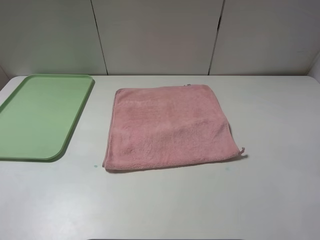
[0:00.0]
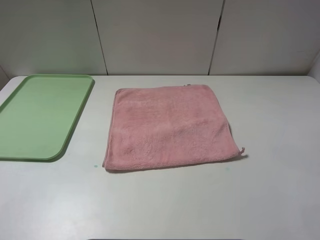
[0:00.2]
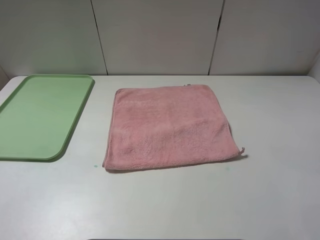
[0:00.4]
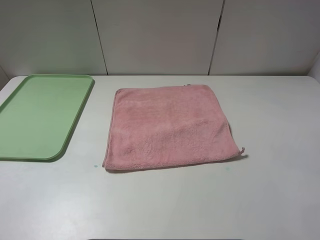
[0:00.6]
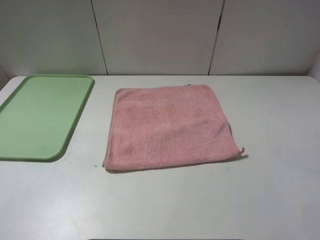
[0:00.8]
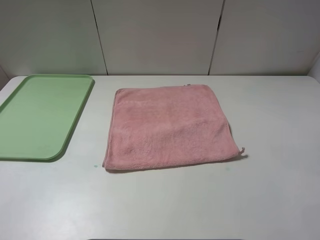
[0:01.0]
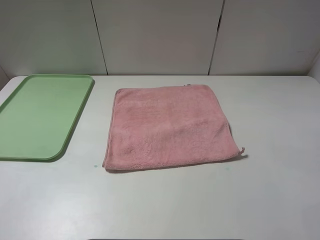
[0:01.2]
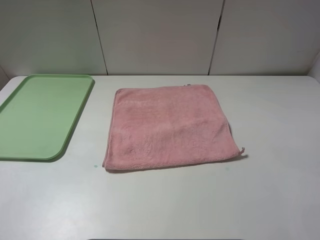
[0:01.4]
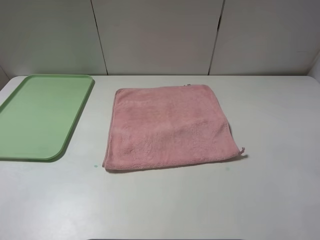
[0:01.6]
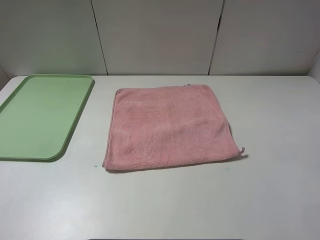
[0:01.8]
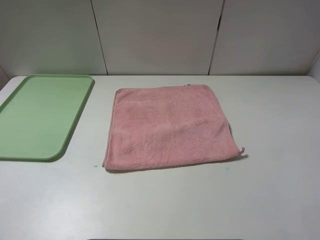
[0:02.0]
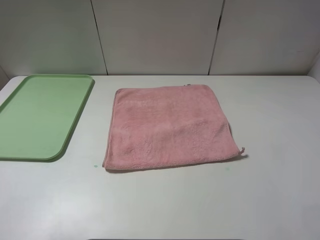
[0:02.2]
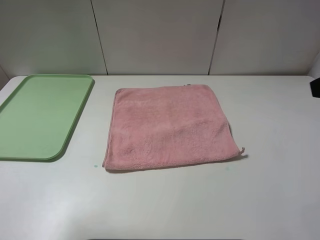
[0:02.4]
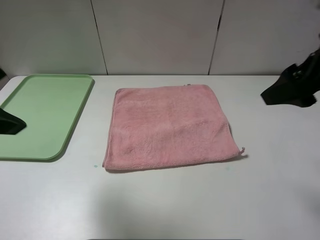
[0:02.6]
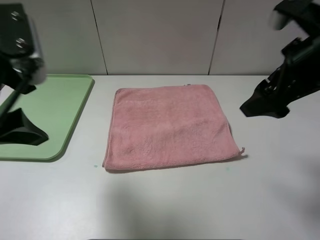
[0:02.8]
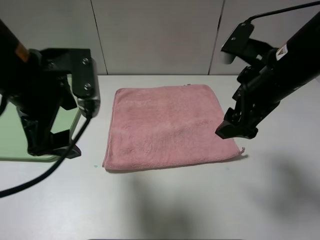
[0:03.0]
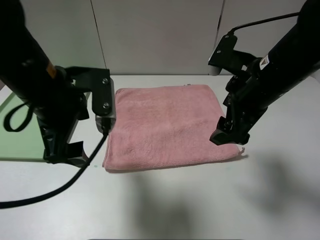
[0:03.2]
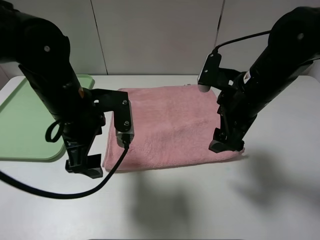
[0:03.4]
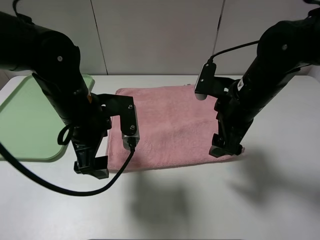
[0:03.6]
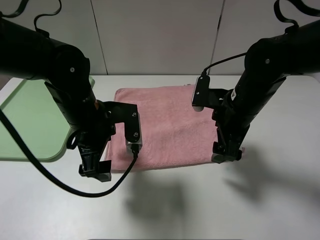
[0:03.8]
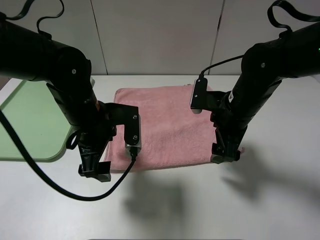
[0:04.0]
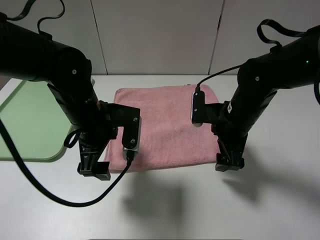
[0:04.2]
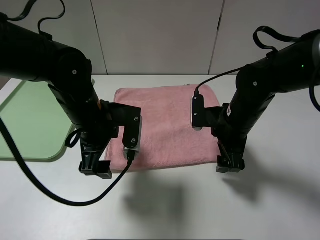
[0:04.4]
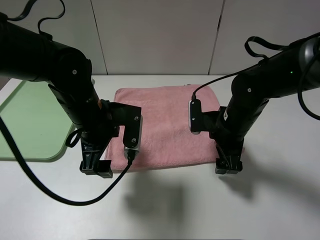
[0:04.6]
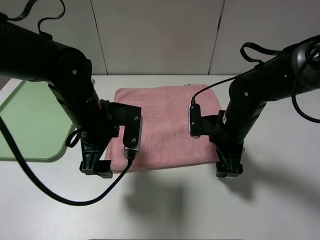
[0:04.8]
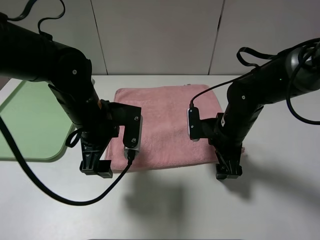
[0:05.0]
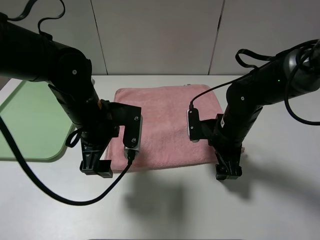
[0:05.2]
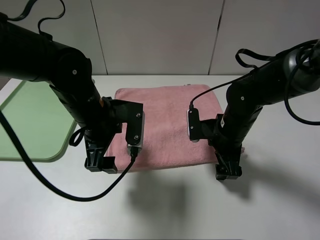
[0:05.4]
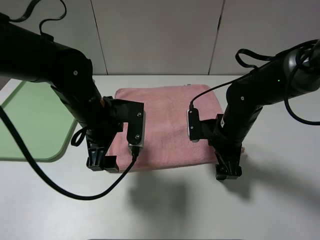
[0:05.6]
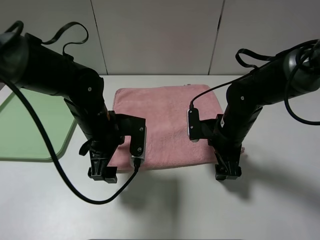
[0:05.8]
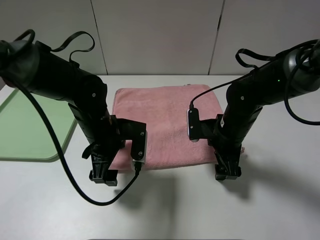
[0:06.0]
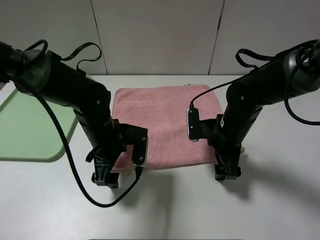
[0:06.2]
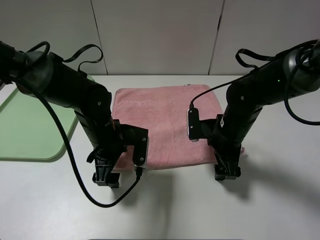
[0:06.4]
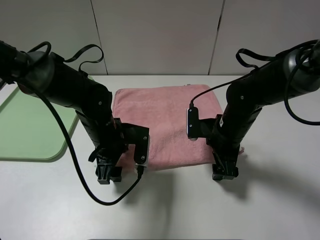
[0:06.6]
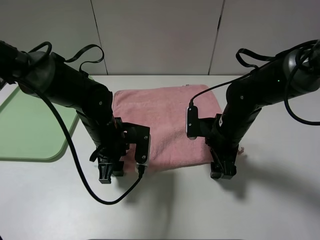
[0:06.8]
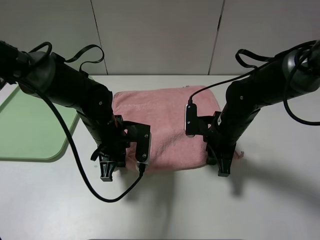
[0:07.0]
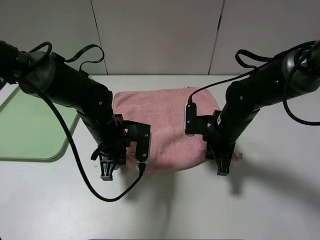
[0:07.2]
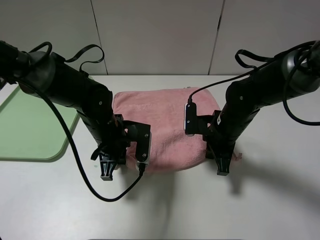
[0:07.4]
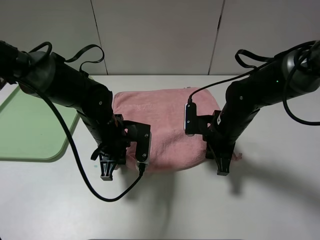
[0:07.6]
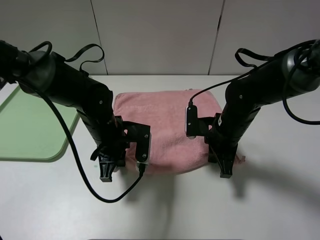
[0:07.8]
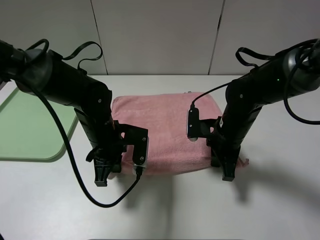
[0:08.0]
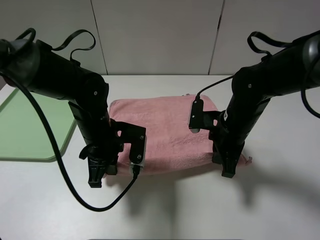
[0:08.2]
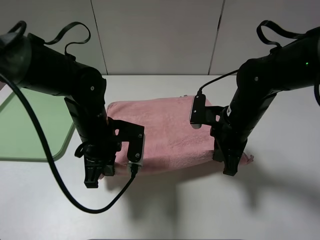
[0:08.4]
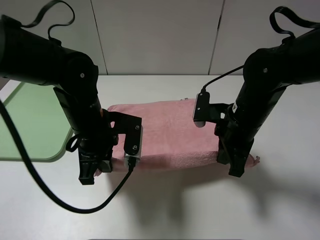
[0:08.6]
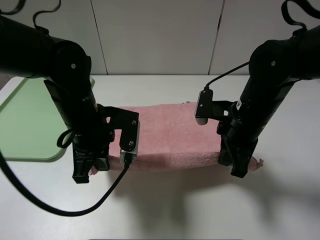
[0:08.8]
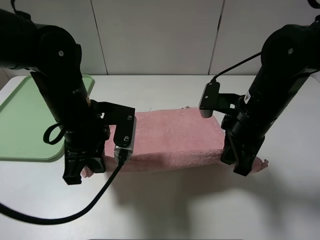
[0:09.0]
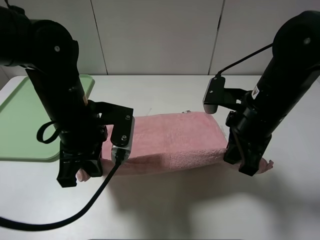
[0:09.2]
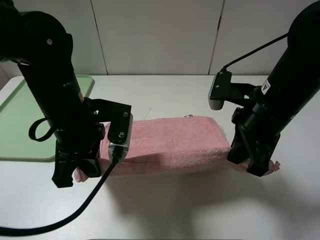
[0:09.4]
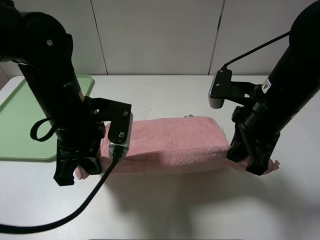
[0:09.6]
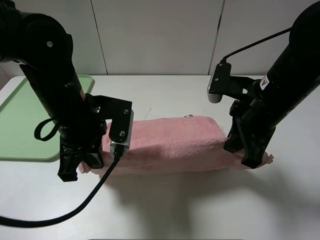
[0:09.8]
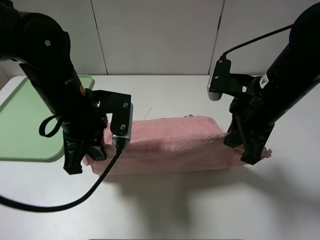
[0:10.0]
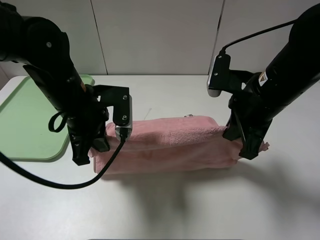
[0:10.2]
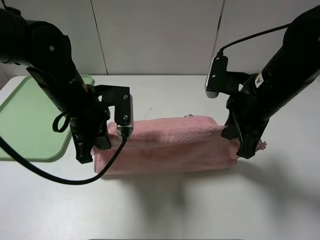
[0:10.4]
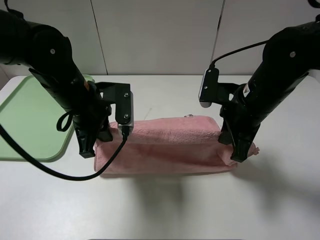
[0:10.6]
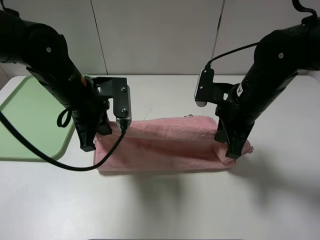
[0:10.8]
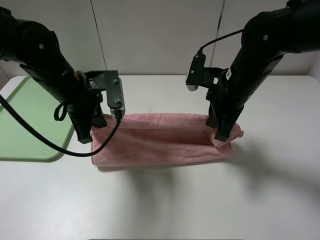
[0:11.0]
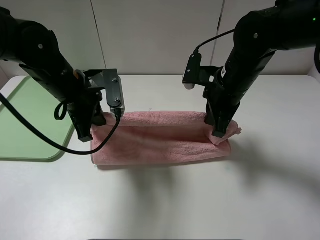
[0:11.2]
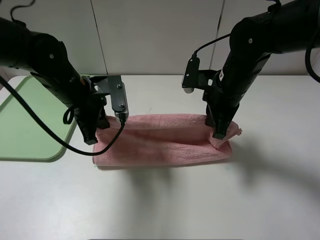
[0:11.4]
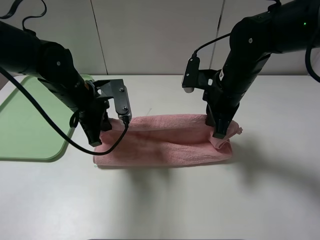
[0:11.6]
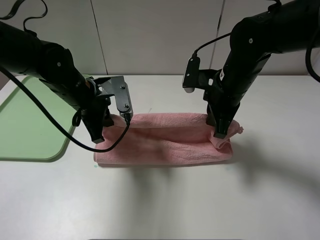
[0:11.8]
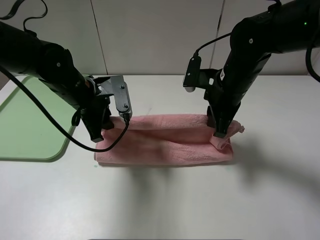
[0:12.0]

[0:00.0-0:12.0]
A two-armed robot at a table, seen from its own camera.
0:00.0 to 0:01.6: Both grippers stay put.
0:01.6 to 0:03.0: The left gripper goes roughly 25 cm forward and to the right. Meanwhile the right gripper goes about 25 cm forward and to the left.
0:03.0 to 0:04.4: Both grippers move downward, roughly 10 cm.
0:04.4 to 0:06.0: The left gripper moves approximately 5 cm.
0:06.0 to 0:07.6: The right gripper closes. The left gripper closes.
0:07.6 to 0:09.0: The grippers both shift upward by some 10 cm.
0:10.4 to 0:12.0: Both grippers travel together forward, about 5 cm. The right gripper opens up, while the left gripper opens.

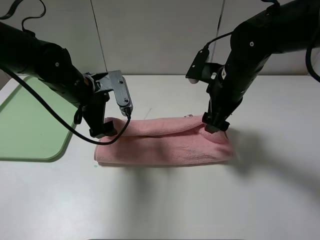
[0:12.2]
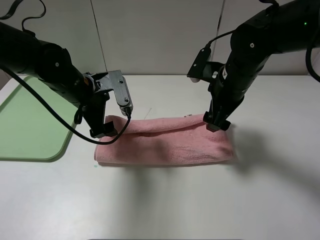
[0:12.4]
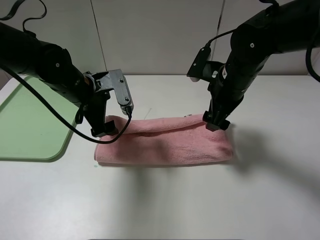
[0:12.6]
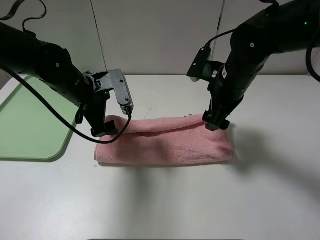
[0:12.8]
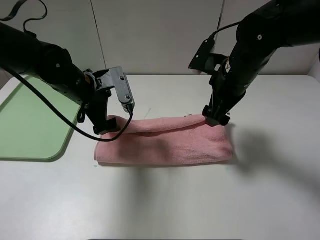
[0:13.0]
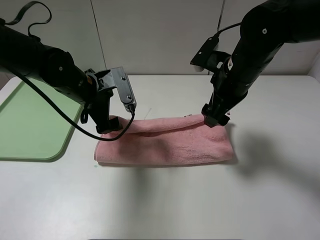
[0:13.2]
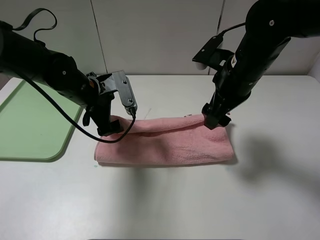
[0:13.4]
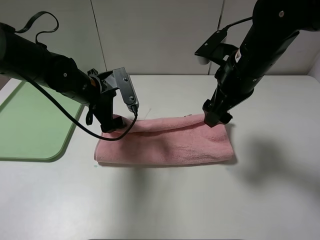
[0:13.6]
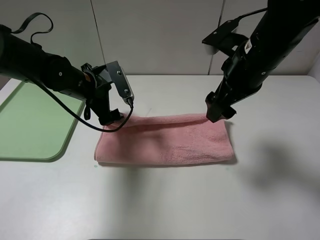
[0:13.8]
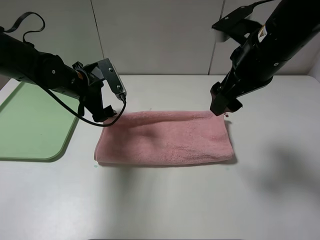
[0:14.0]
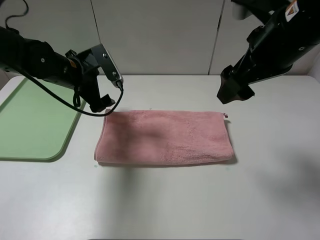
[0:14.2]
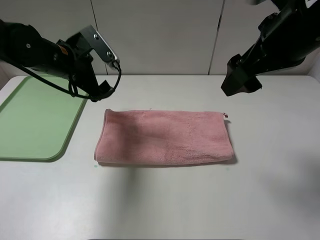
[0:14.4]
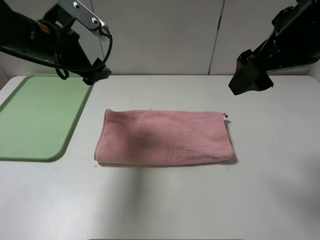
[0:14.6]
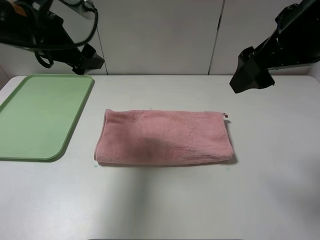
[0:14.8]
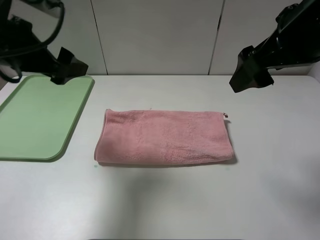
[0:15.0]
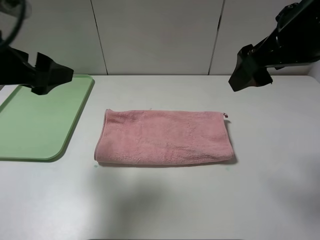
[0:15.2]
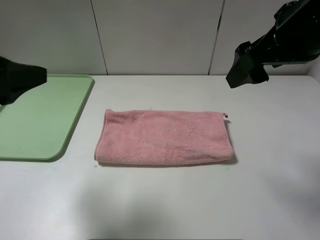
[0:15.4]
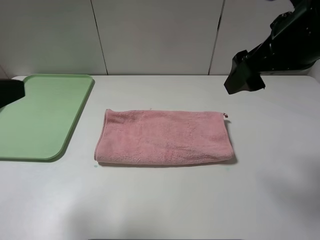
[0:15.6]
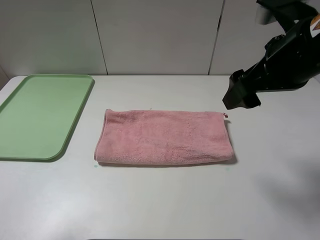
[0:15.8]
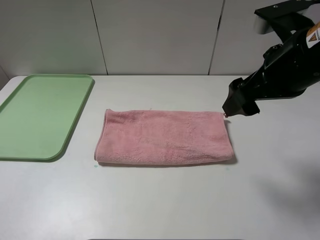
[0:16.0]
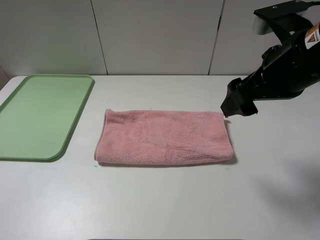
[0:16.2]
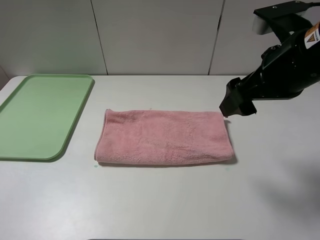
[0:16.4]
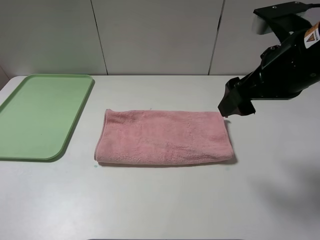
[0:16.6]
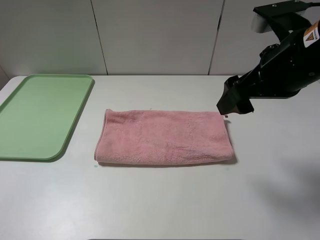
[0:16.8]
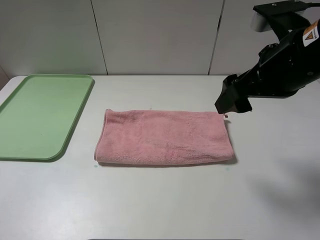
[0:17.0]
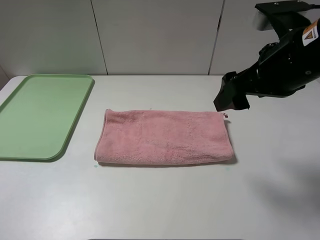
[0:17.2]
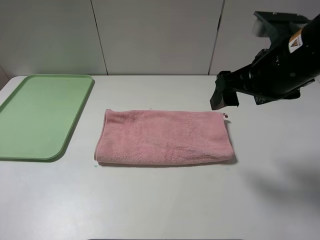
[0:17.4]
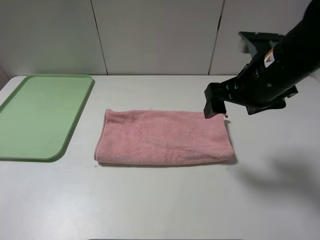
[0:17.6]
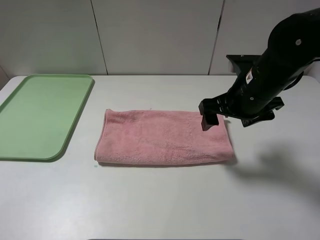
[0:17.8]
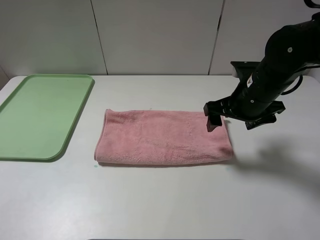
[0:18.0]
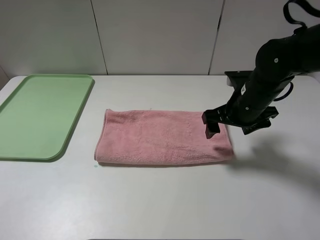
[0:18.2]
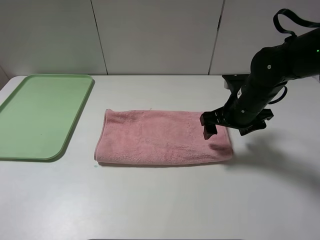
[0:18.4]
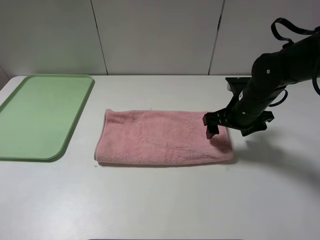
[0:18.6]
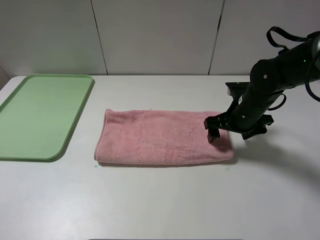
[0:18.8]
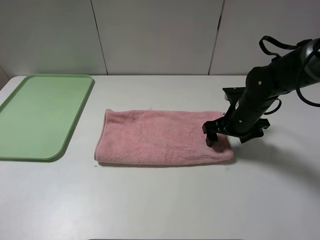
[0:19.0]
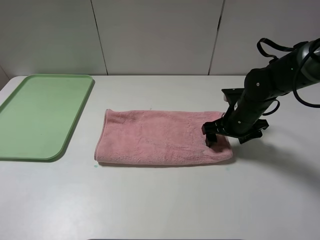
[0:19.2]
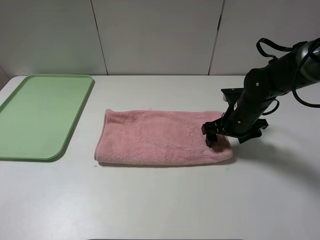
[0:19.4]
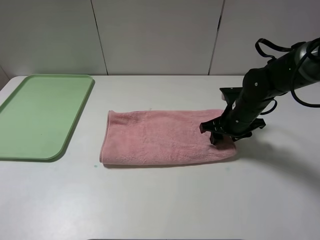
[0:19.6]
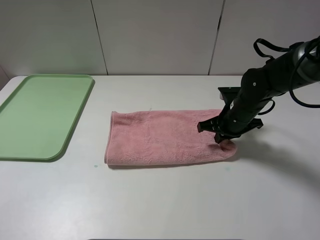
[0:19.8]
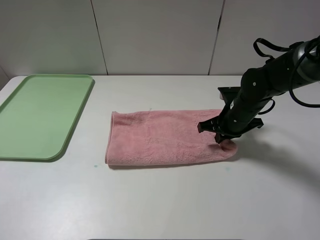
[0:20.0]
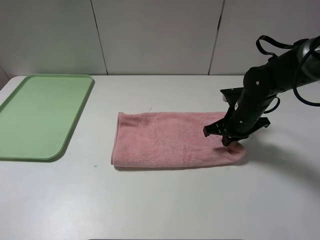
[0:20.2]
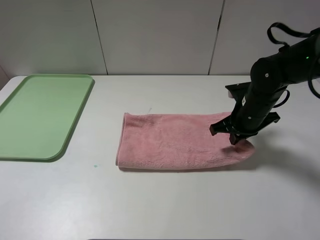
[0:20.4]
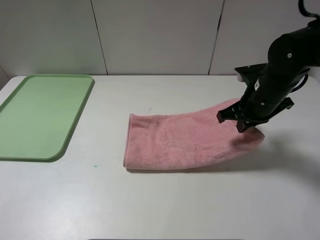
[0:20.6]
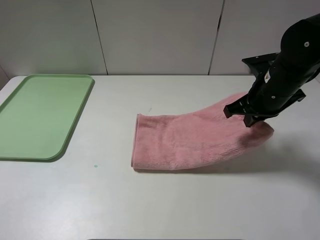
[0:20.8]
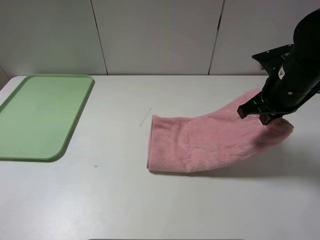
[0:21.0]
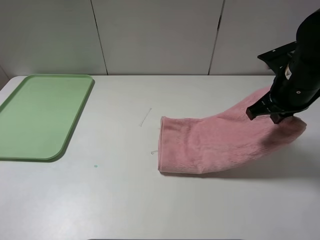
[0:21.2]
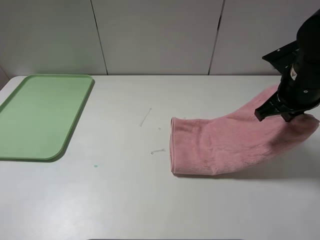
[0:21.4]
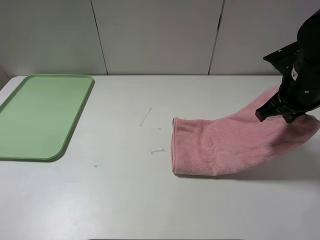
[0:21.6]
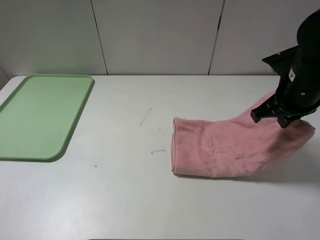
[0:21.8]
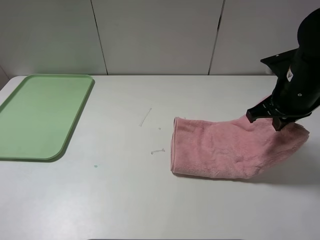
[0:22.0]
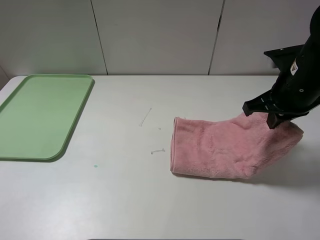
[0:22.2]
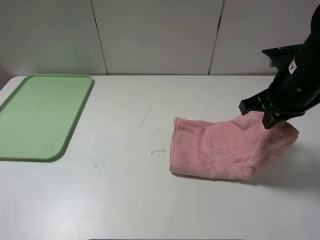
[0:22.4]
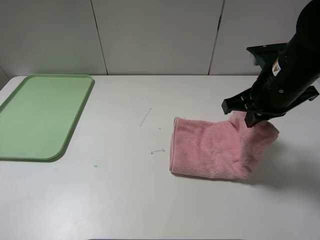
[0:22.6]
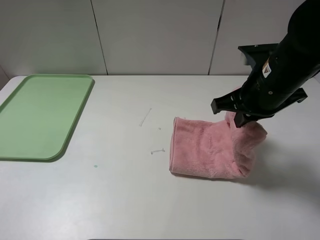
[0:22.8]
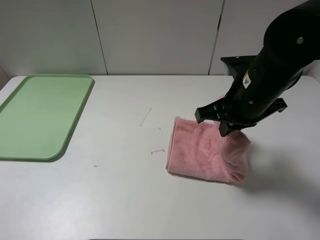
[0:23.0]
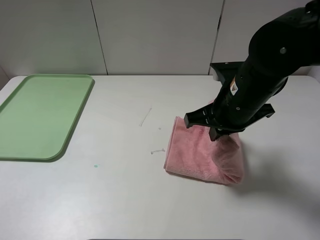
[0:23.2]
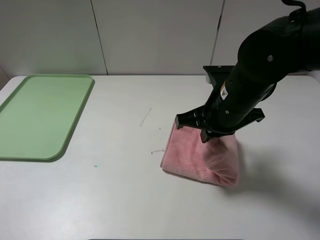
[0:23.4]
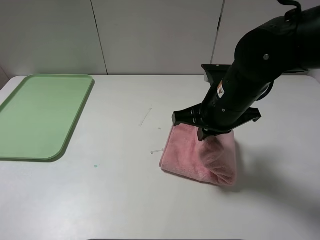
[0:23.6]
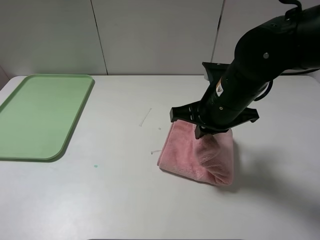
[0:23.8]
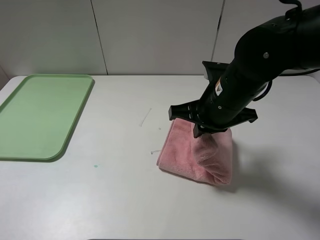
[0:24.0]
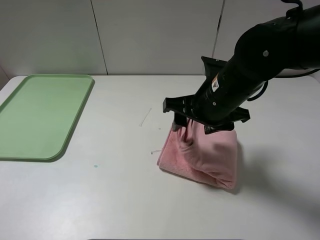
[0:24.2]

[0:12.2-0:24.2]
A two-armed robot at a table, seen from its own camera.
0:12.2 to 0:13.8: The right gripper is displaced upward by some 5 cm.
0:13.8 to 0:15.2: The right gripper is displaced upward and backward by about 10 cm, while the left gripper goes some 25 cm backward, upward and to the left.
0:15.2 to 0:16.6: The left gripper is displaced backward and to the left by about 20 cm.
0:16.6 to 0:18.2: The right gripper heads downward and forward, covering roughly 15 cm.
0:18.2 to 0:19.8: The right gripper shifts approximately 5 cm downward, and closes its fingers.
0:19.8 to 0:21.2: The right gripper heads upward, covering roughly 15 cm.
0:21.2 to 0:22.6: The right gripper is displaced to the left by roughly 5 cm.
0:22.6 to 0:24.2: The right gripper goes about 10 cm to the left, and opens.
